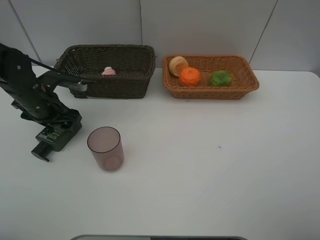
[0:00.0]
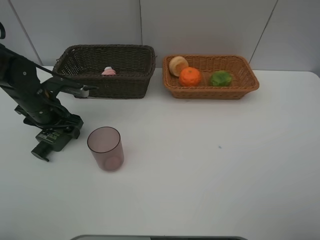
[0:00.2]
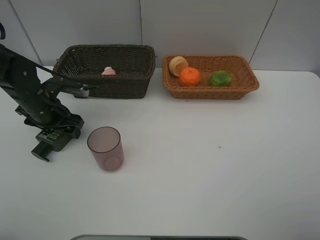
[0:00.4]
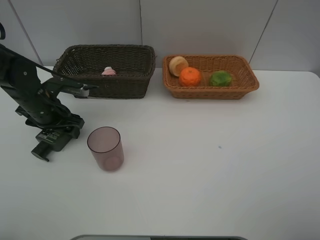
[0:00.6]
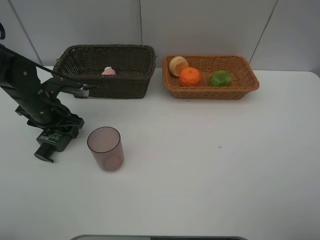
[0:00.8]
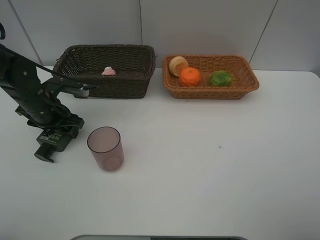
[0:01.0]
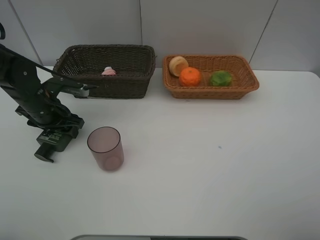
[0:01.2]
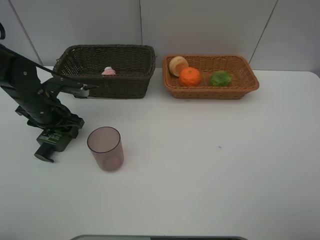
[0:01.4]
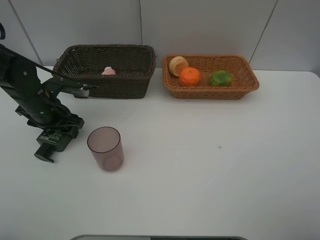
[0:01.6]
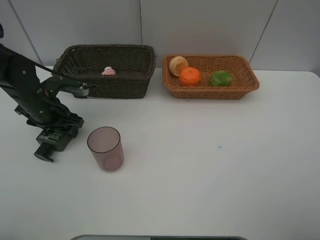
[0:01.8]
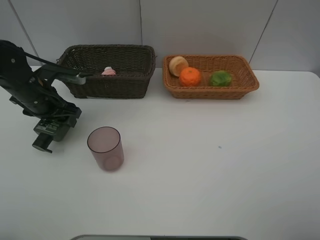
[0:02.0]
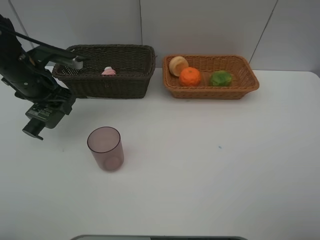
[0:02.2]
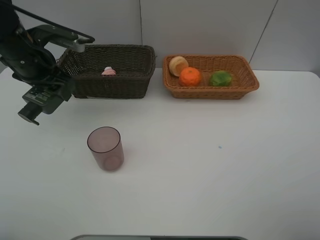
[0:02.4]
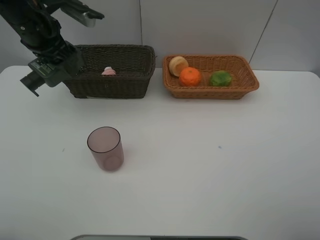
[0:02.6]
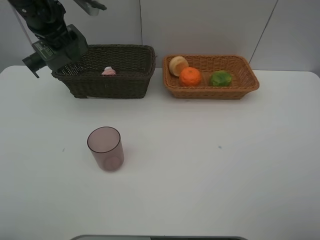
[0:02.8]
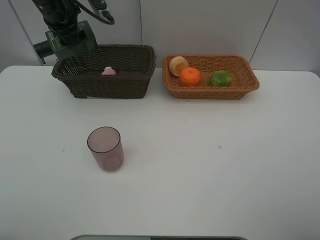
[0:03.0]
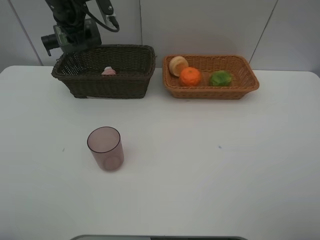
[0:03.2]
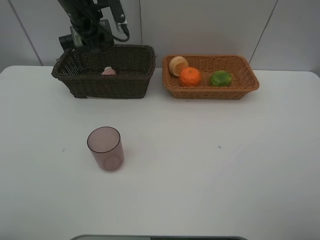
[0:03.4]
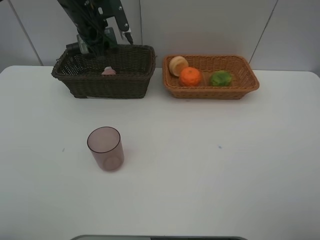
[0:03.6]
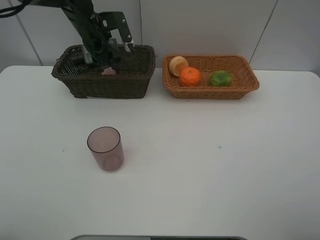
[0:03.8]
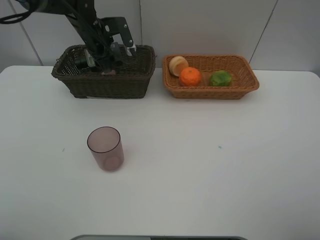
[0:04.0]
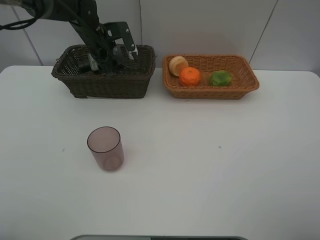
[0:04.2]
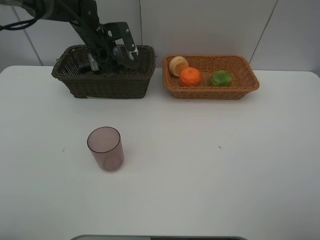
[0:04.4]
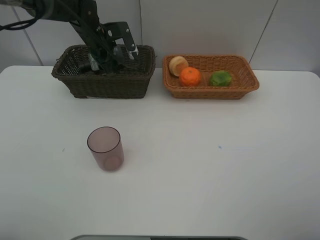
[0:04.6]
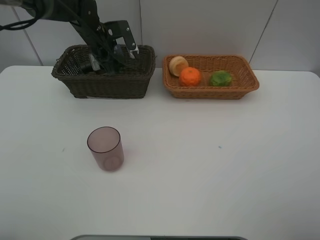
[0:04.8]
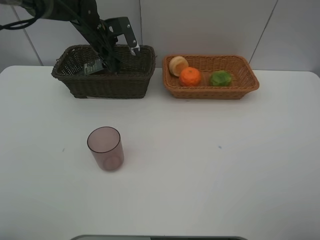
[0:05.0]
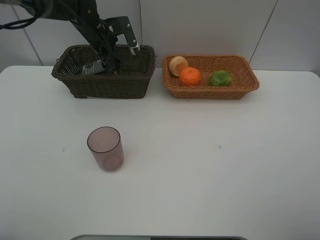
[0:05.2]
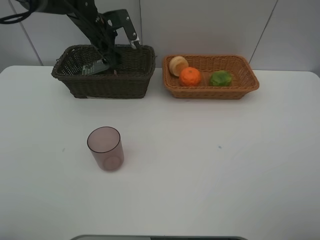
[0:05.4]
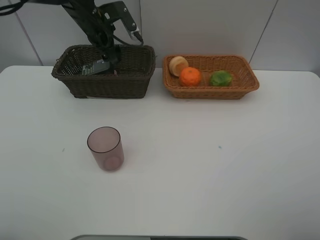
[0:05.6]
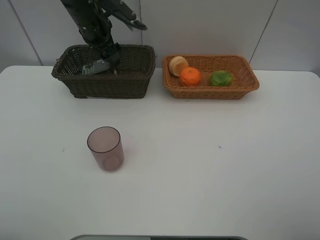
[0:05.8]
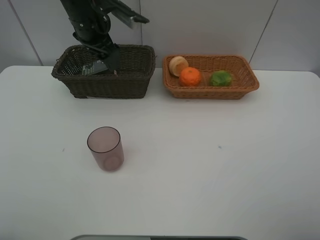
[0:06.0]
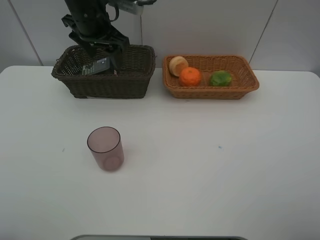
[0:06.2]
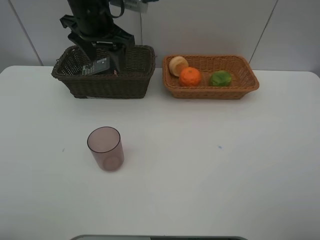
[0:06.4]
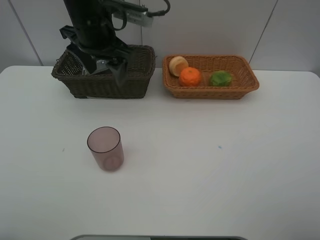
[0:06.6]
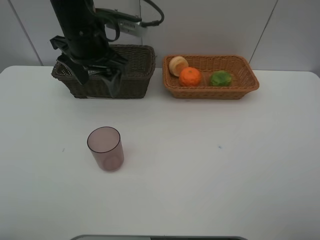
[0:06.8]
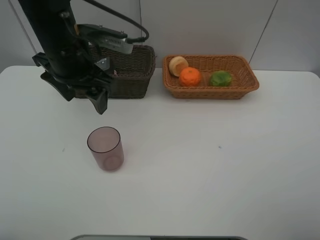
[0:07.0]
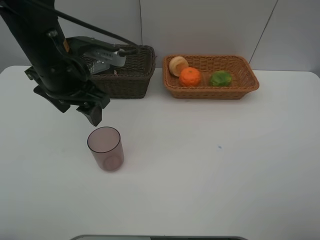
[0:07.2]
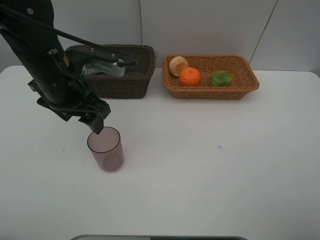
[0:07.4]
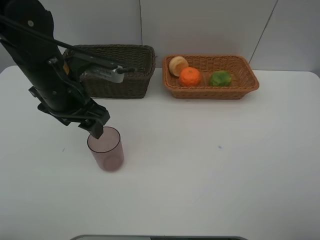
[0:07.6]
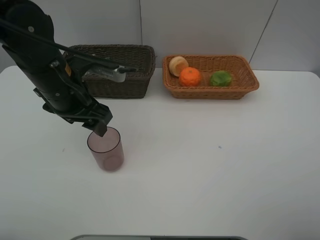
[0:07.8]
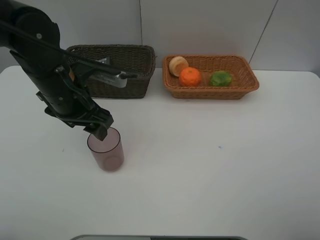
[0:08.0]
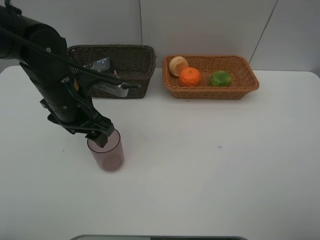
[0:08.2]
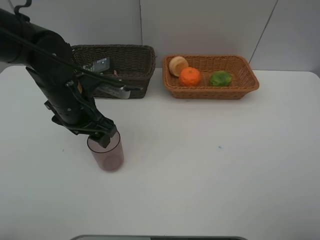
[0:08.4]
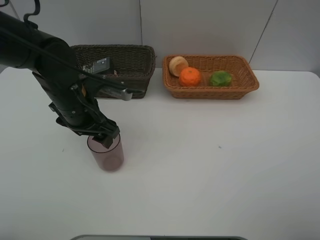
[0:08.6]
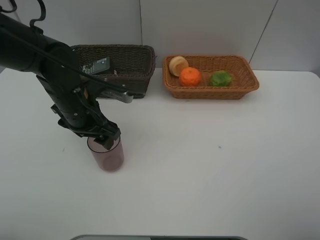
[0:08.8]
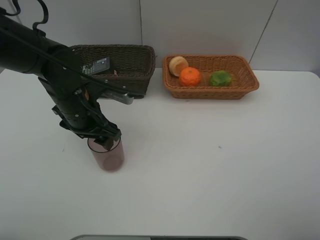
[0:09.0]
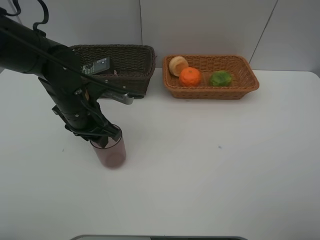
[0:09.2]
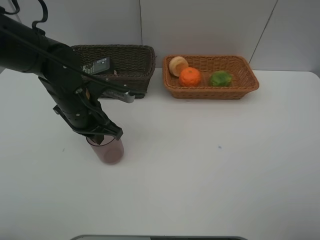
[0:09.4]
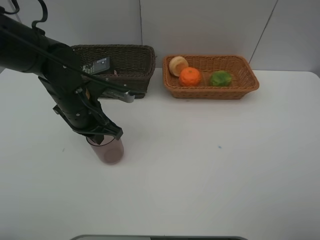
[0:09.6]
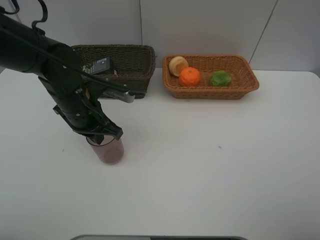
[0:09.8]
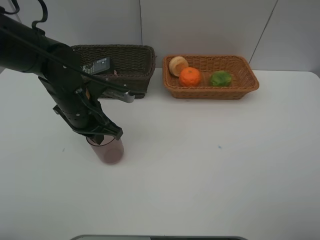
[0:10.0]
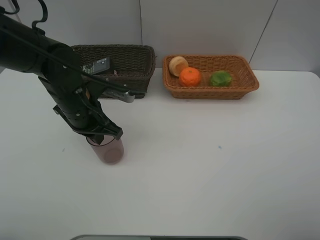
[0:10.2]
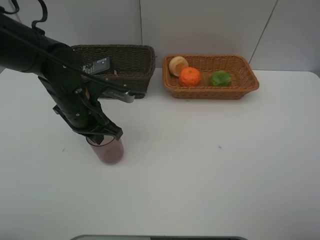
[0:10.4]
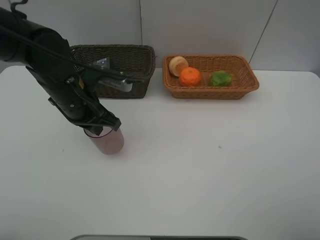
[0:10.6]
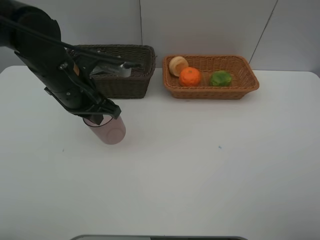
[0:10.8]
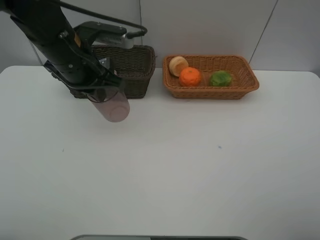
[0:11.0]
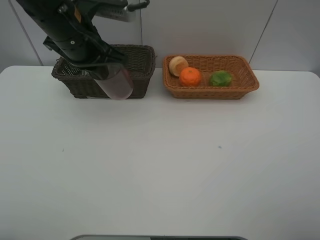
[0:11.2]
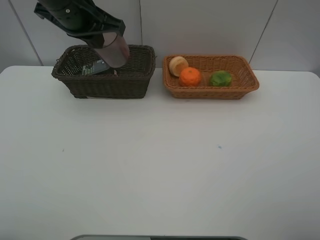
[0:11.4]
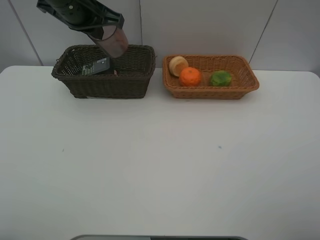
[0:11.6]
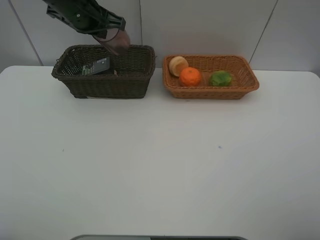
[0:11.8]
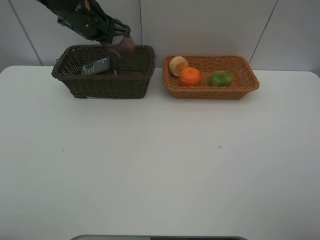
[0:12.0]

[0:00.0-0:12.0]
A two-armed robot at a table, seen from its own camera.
Task of the whole recording: place multiple objects separately in different baskets.
0:00.0 to 0:01.6: Both grippers stay about where they are.
0:01.6 to 0:03.0: The left gripper moves upward and forward, roughly 20 cm.
0:03.0 to 0:04.4: The left gripper shifts about 10 cm downward and forward.
0:04.4 to 0:06.0: The left gripper is displaced upward and backward by roughly 10 cm.
0:06.0 to 0:07.6: The left gripper heads backward, covering roughly 15 cm.
0:07.6 to 0:09.0: The left gripper travels downward by some 5 cm.
0:09.0 to 0:10.4: The left gripper closes.
0:10.4 to 0:12.0: The left gripper is displaced forward and upward by about 15 cm.

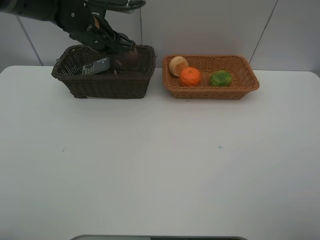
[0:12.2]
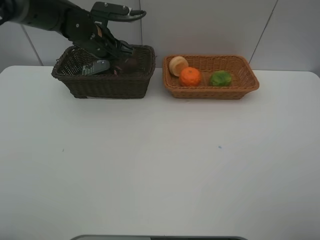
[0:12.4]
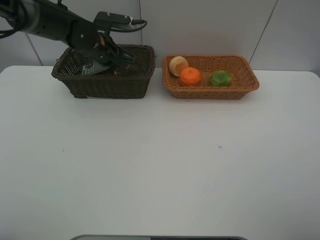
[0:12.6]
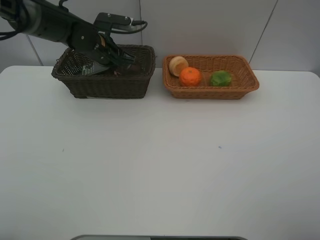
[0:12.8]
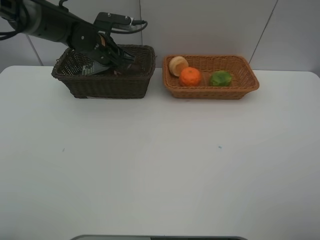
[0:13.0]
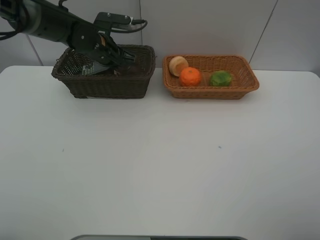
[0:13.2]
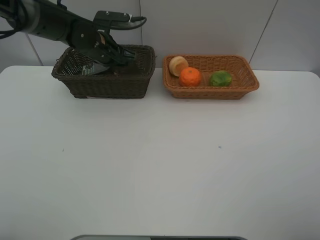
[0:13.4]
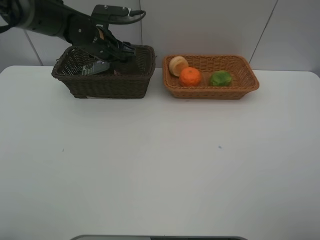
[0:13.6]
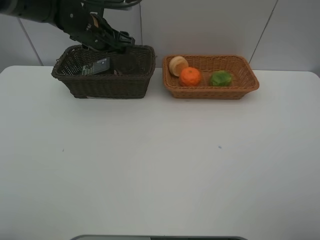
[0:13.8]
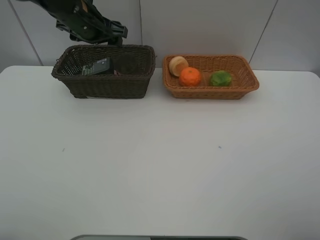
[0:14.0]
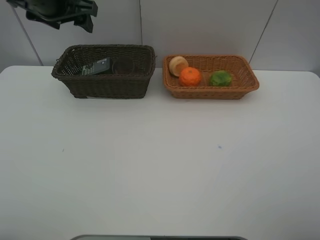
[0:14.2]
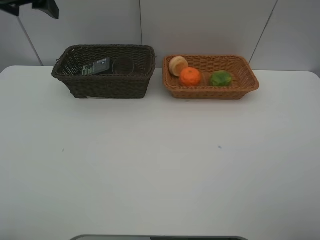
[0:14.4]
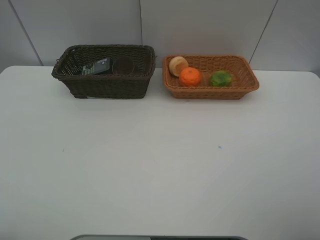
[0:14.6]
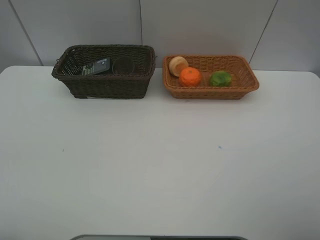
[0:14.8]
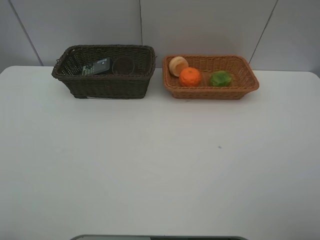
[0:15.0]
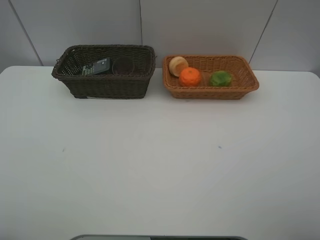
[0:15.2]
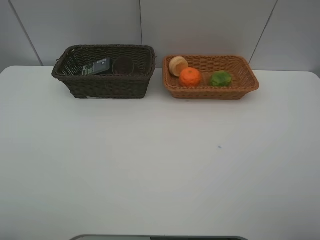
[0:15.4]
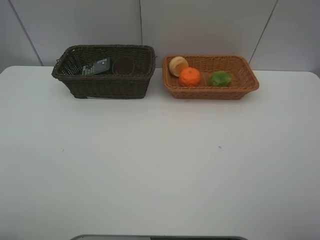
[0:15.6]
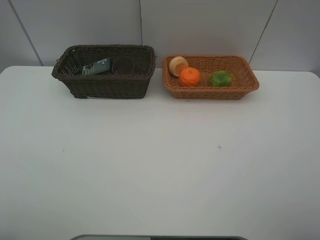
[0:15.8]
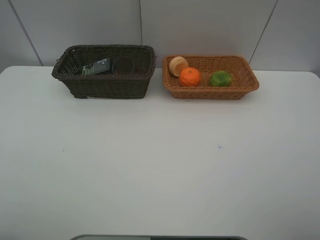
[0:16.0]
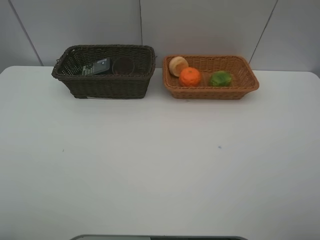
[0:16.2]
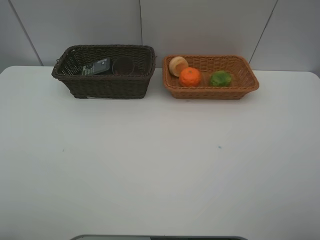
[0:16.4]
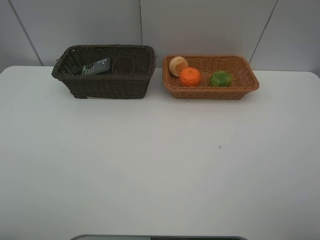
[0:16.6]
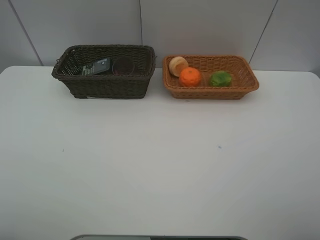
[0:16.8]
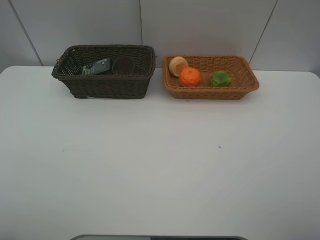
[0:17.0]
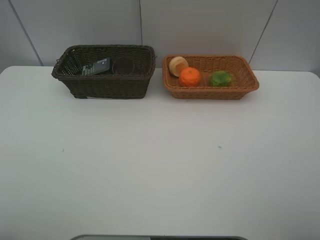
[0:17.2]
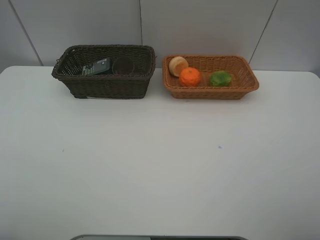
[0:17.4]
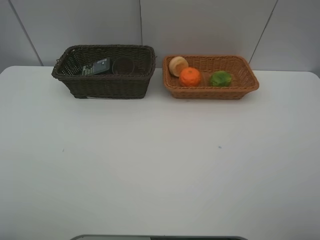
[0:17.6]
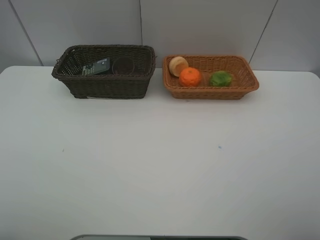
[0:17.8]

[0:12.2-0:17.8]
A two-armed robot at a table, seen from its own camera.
Task of the whole recording: place multiple objects separately in different baskets.
0:12.2 to 0:13.6: The left gripper opens its fingers.
0:13.6 to 0:15.0: The left gripper travels backward, upward and to the left by some 40 cm.
0:16.4 to 0:17.8: Neither gripper changes place.

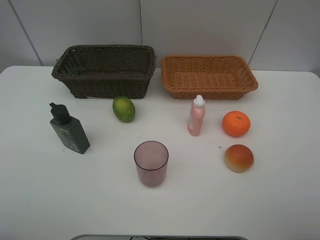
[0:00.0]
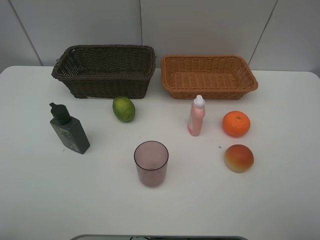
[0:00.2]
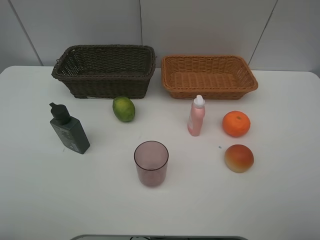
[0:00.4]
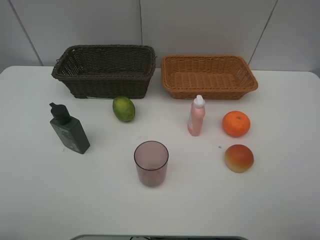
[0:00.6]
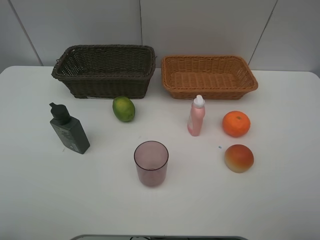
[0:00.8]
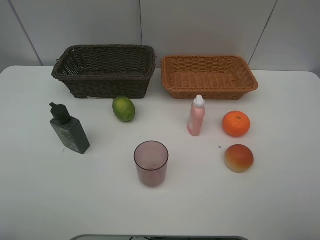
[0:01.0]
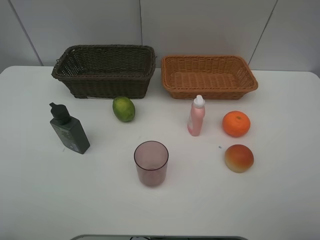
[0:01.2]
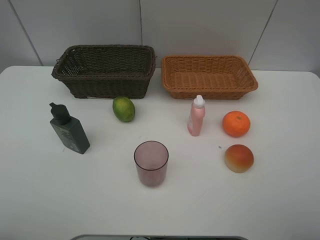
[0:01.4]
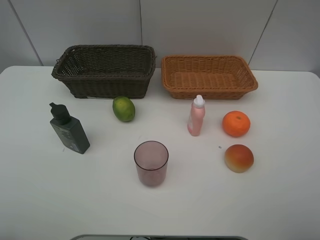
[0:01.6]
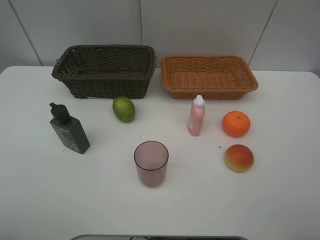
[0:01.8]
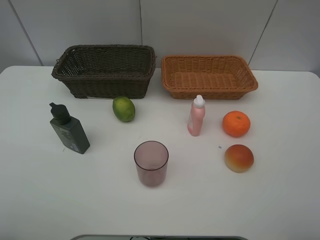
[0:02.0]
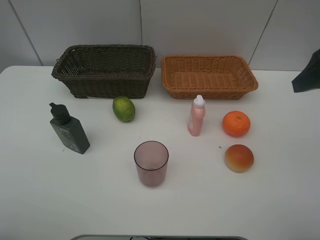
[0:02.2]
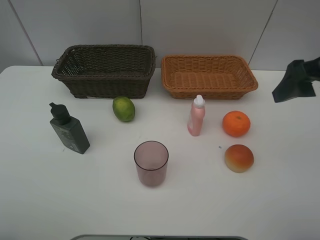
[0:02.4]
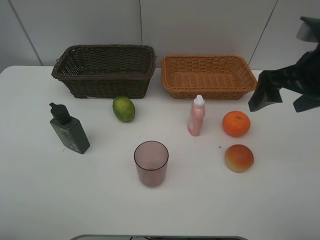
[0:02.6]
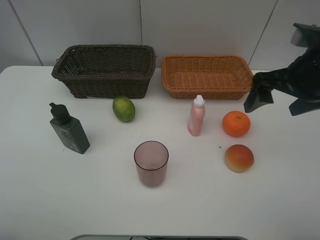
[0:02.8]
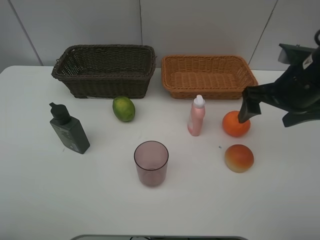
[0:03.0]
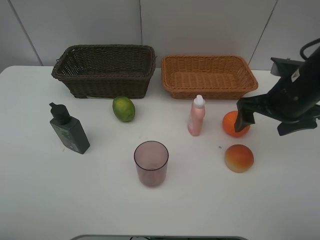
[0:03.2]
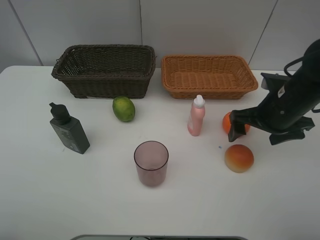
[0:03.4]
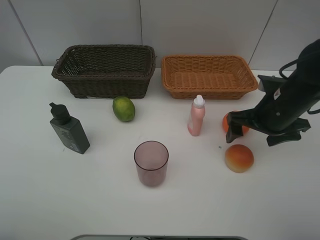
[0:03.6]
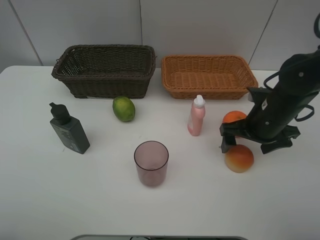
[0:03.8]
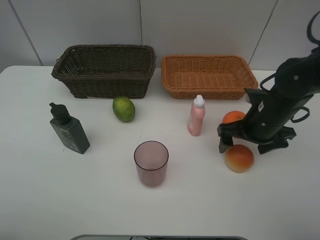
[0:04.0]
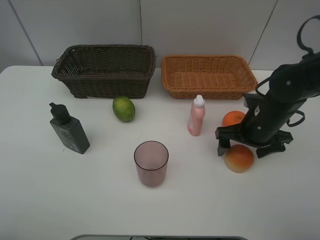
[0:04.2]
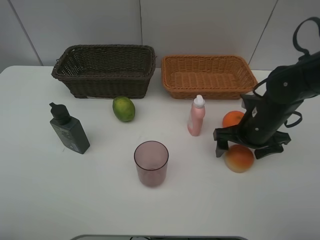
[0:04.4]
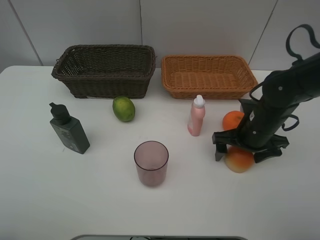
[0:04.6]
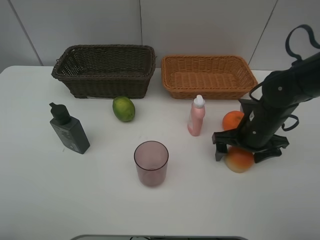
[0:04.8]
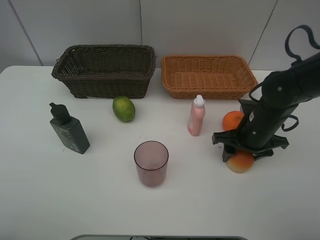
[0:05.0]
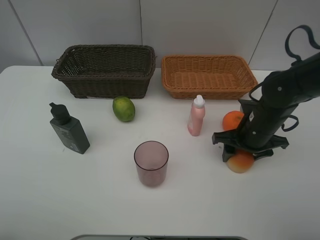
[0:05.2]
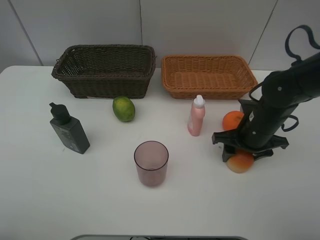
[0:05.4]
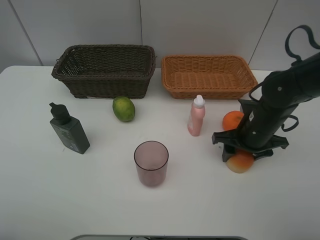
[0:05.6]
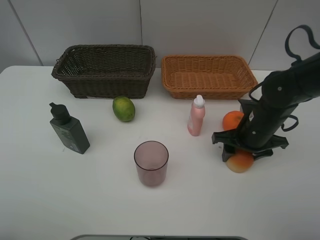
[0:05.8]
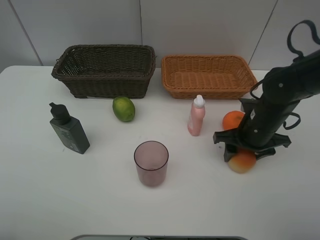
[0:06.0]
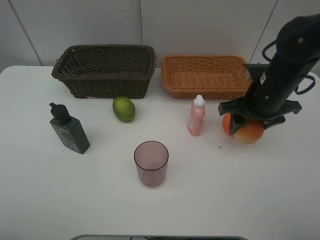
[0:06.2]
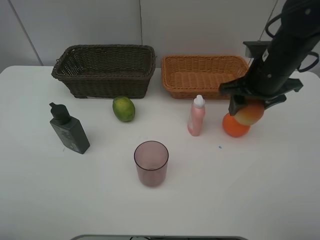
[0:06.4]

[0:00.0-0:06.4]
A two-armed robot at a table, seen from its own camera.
Task of the whole recording: place multiple objects separately in different baskets.
0:01.6 to 0:03.2: The right gripper shifts approximately 25 cm forward and downward.
0:03.2 to 0:04.8: The right gripper heads downward, covering approximately 10 cm.
0:04.8 to 0:06.4: The right gripper heads upward, covering approximately 10 cm, and closes its fingers.
